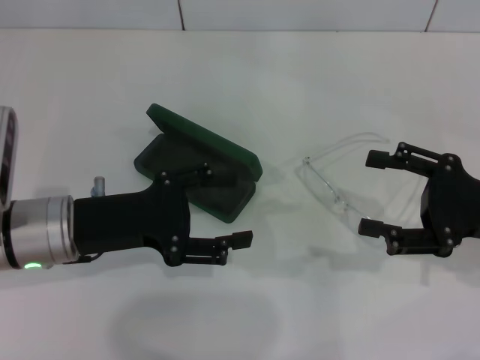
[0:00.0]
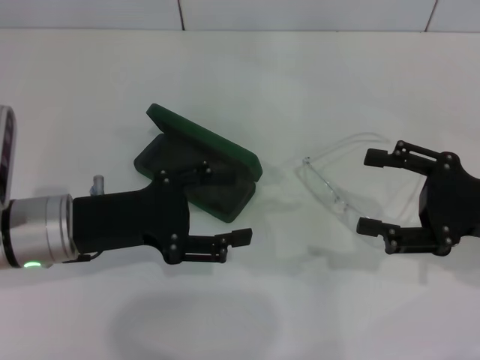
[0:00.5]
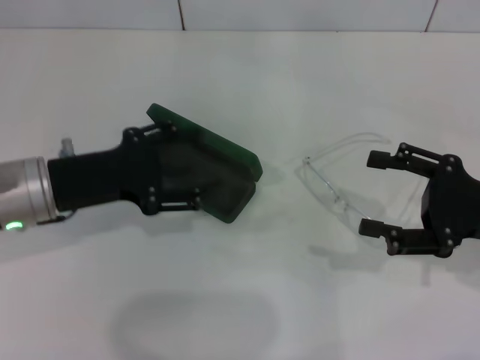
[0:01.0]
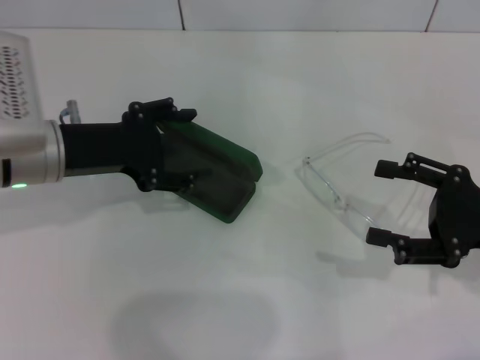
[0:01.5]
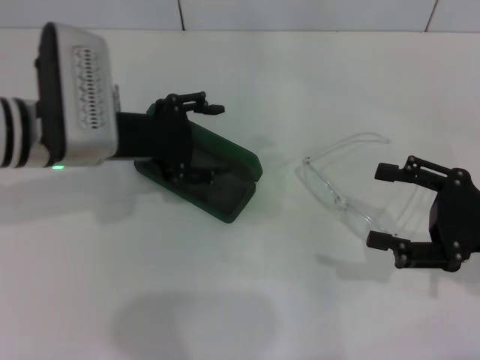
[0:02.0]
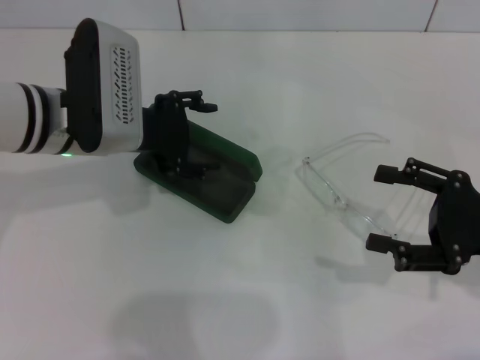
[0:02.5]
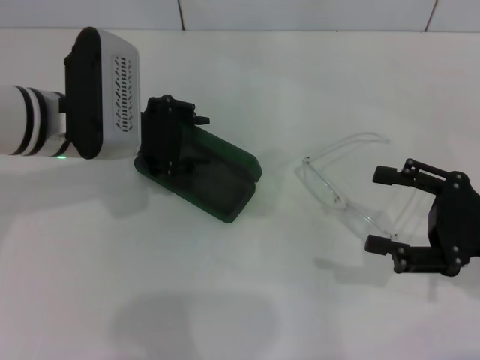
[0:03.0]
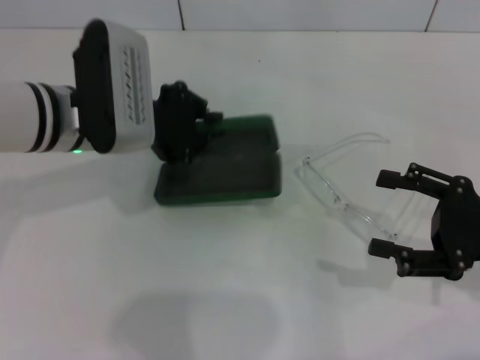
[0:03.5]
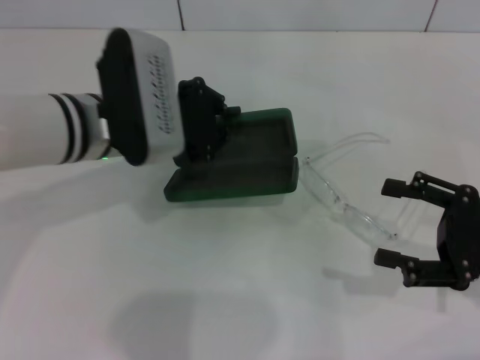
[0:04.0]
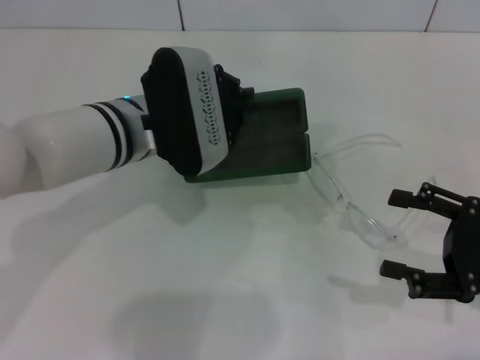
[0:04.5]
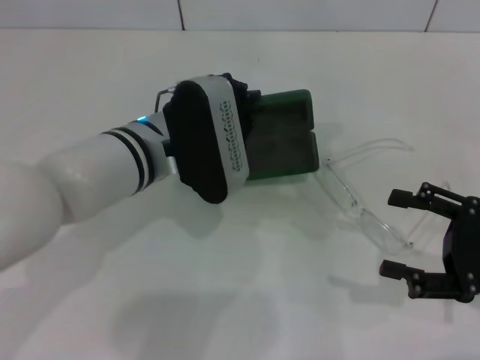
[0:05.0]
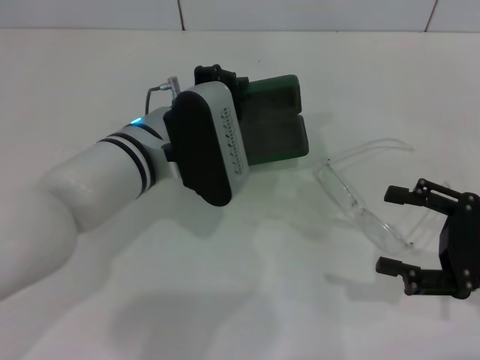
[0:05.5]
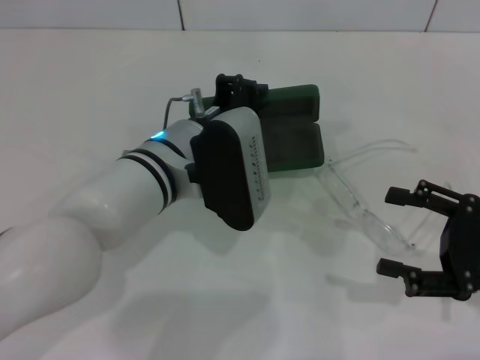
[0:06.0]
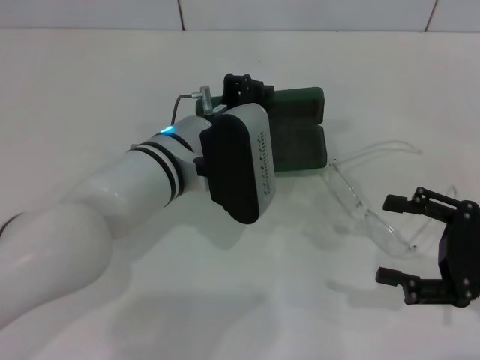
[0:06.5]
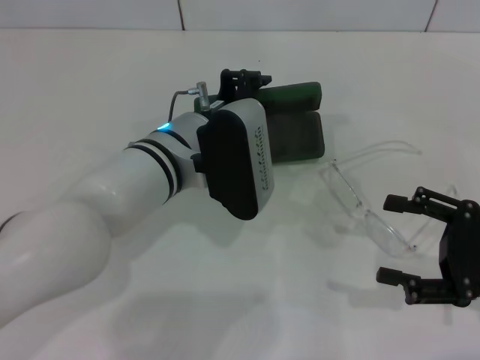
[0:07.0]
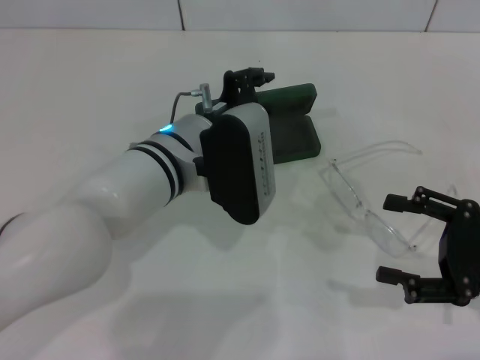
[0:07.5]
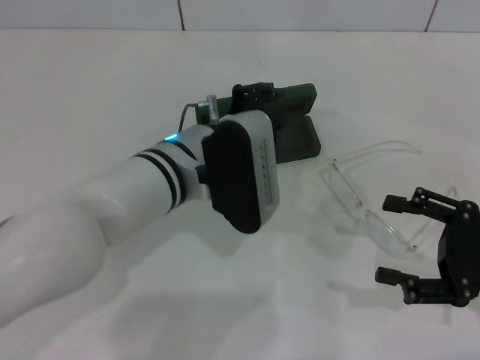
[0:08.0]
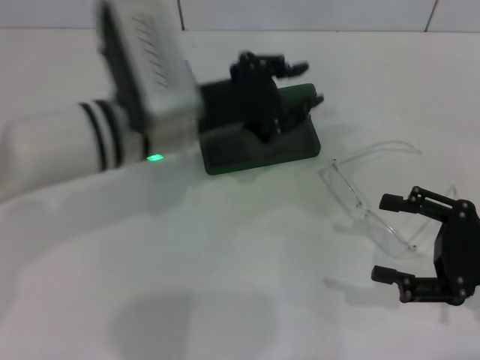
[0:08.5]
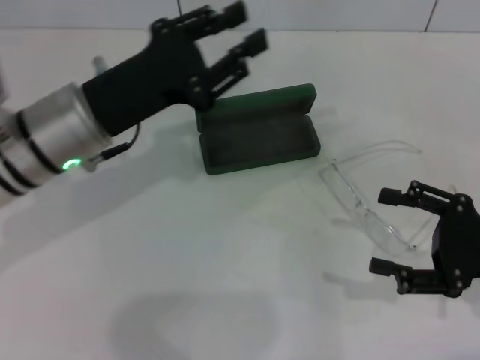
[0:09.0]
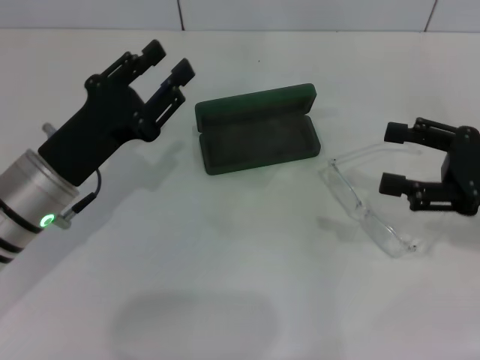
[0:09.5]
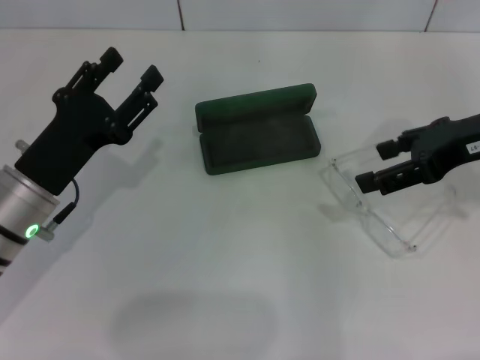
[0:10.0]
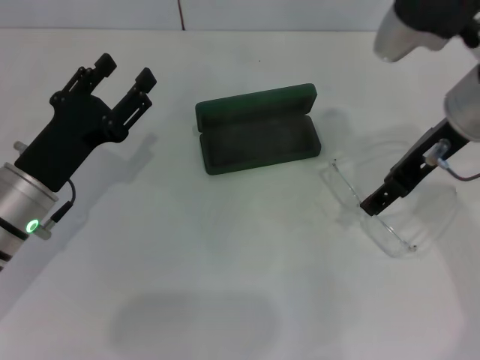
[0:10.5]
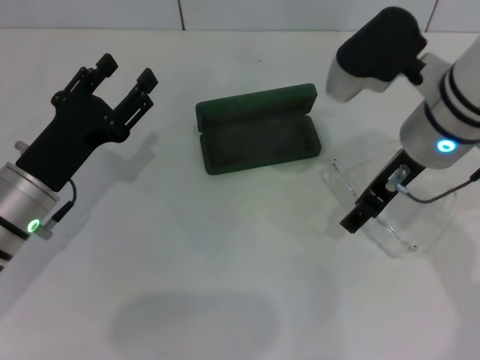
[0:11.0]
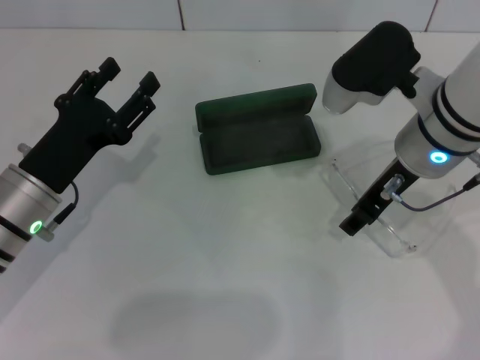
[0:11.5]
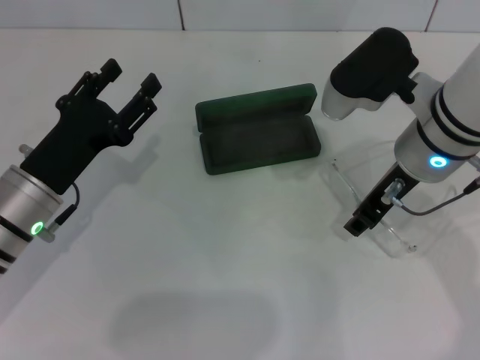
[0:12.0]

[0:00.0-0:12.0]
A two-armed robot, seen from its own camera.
Step, 0.0 to 3.0 s: Grab the glasses case with your left hand.
Step, 3.5 to 7.0 s: Place the glasses case in the center of the table with your left hand.
0.0 to 2.0 s: The left gripper is displaced forward and upward by about 10 cm.
2.0 to 4.0 s: The left gripper closes up.
4.0 to 6.0 s: The left gripper is displaced to the right by roughly 5 cm.
6.0 to 8.0 s: The left gripper opens its fingers.
8.0 to 10.0 s: The right gripper shifts roughly 15 cm upward, forward and to the left, while the left gripper goes approximately 15 cm to the left.
10.0 to 12.0 s: The right gripper is displaced to the left by some 10 cm, and closes.

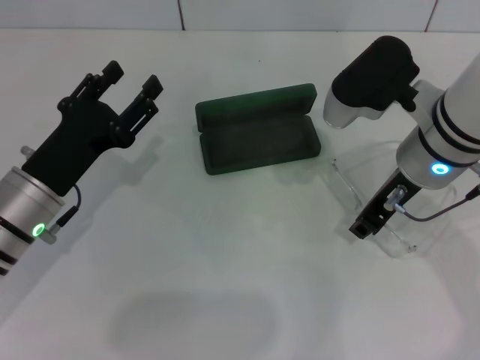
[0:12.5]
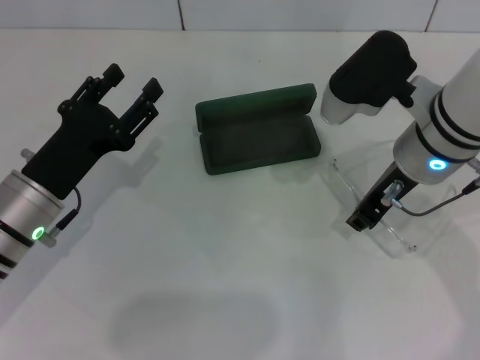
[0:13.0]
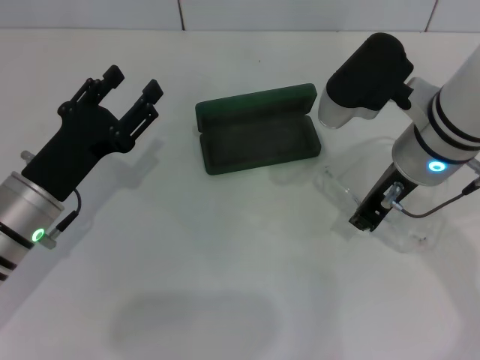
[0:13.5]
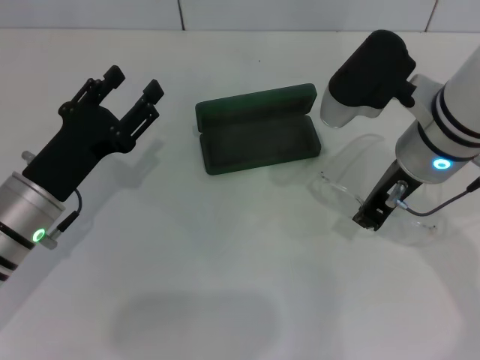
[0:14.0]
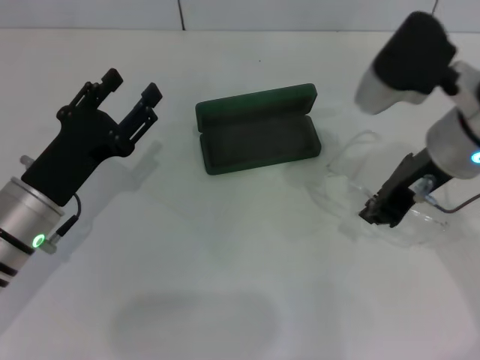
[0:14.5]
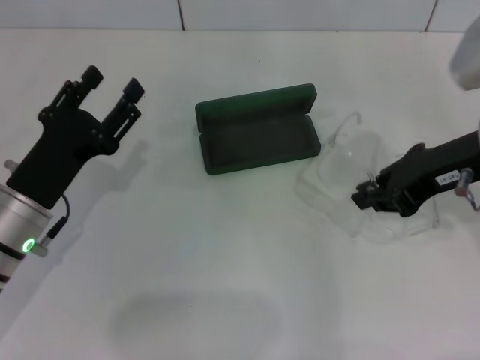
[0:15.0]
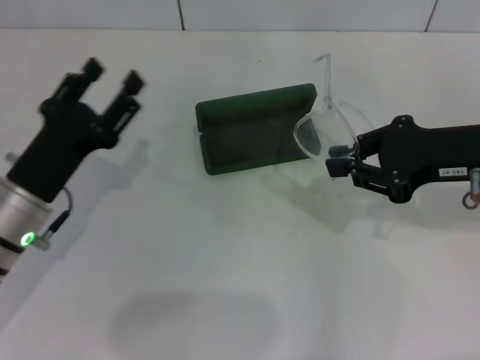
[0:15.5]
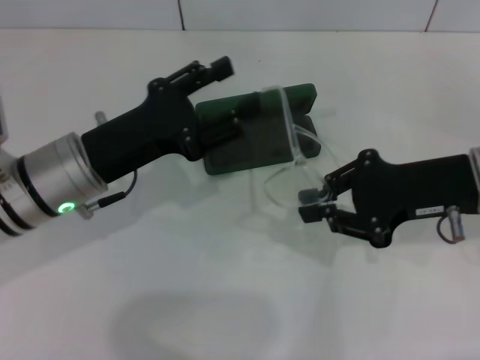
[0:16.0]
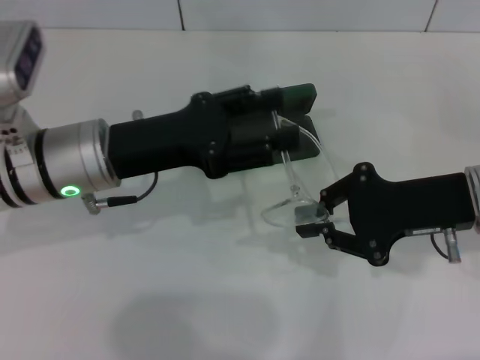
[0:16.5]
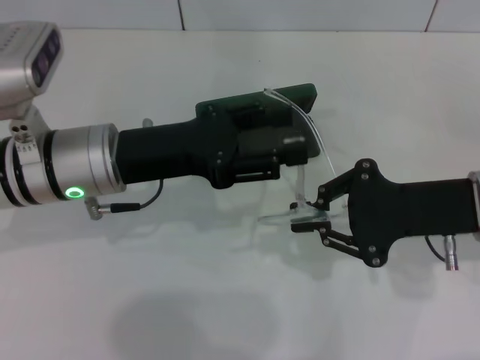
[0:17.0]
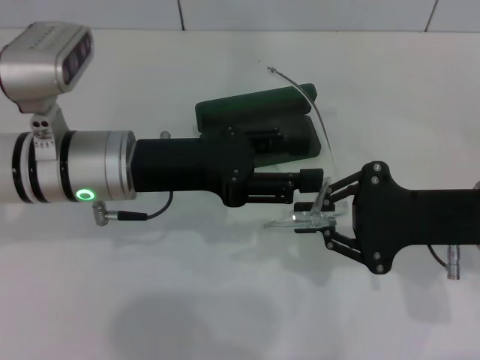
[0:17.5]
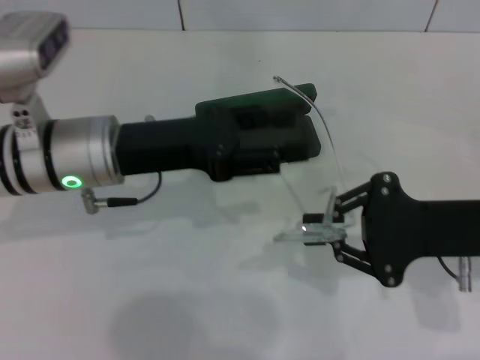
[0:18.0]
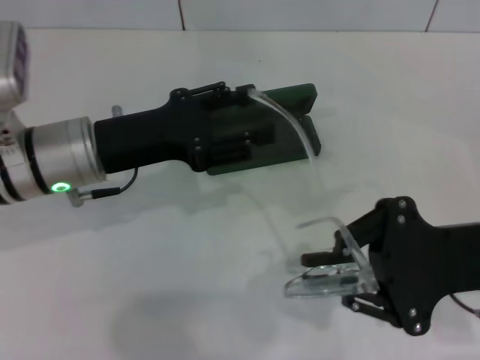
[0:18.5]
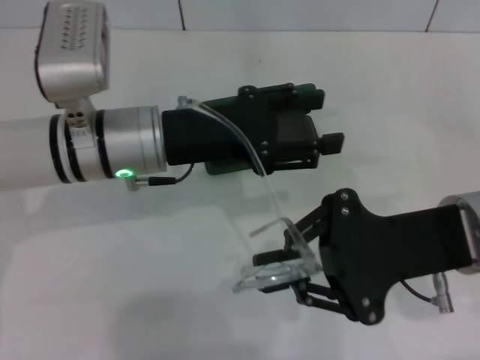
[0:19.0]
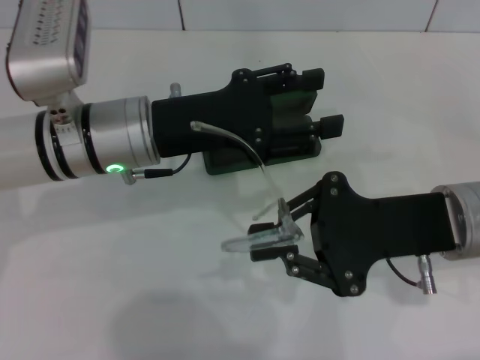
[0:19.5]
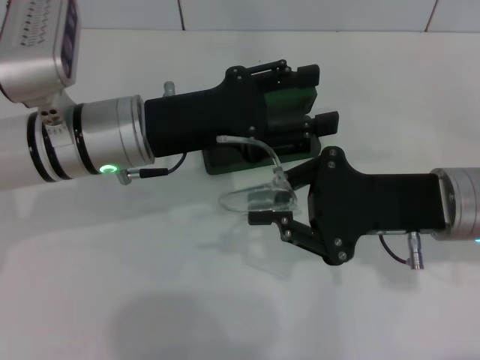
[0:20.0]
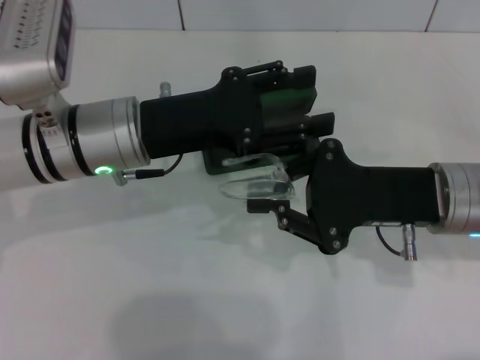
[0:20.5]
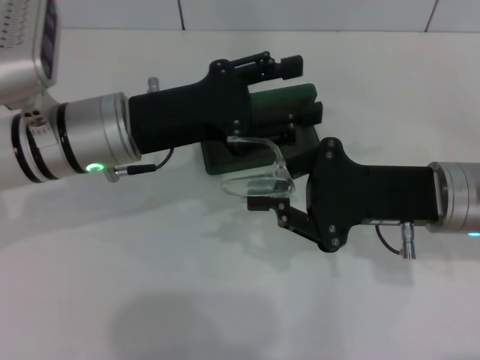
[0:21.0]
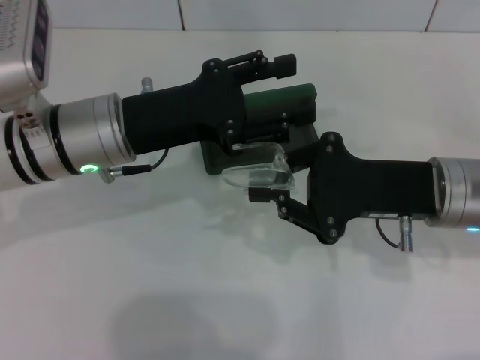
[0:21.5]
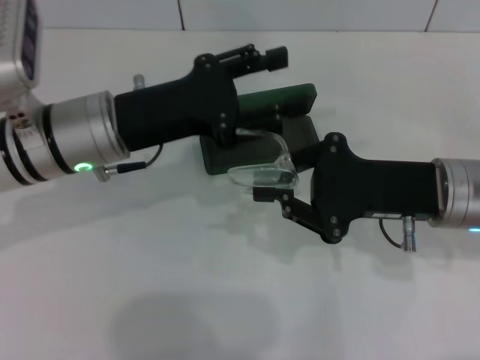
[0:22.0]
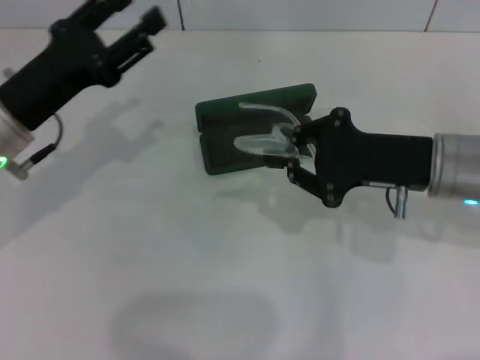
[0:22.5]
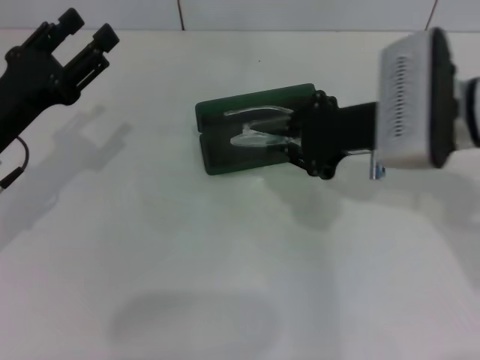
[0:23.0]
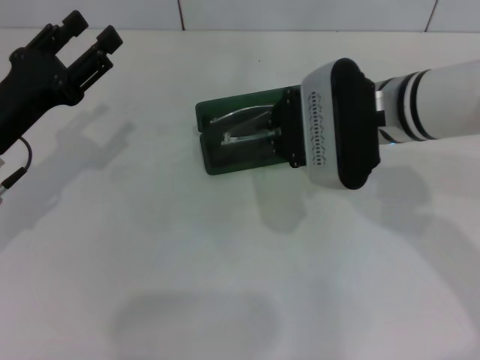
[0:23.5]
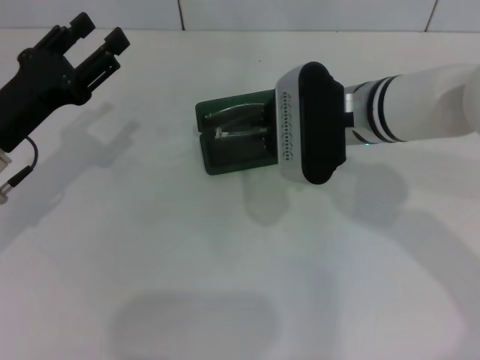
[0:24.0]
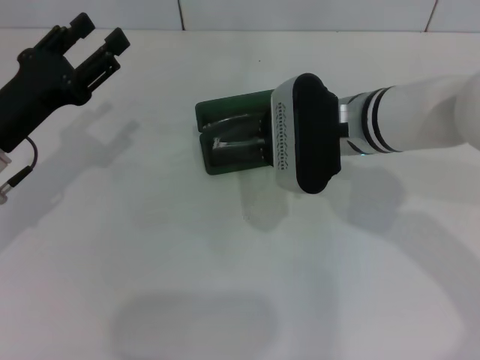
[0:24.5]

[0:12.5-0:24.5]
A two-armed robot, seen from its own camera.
Step, 14.0 to 22.0 s: Fold the frame with your left hand.
12.5 to 14.5 s: The right gripper closes up.
14.5 to 16.5 s: The left gripper is displaced upward and to the right by approximately 10 cm; the right gripper moves to the right and downward, approximately 10 cm.
18.5 to 20.5 s: The right gripper changes place by about 5 cm.
20.5 to 22.5 s: The left gripper shifts about 10 cm to the left.
22.5 to 24.5 s: The right gripper moves to the left and forward, roughly 10 cm.

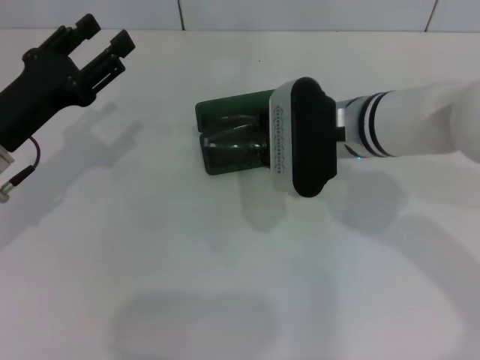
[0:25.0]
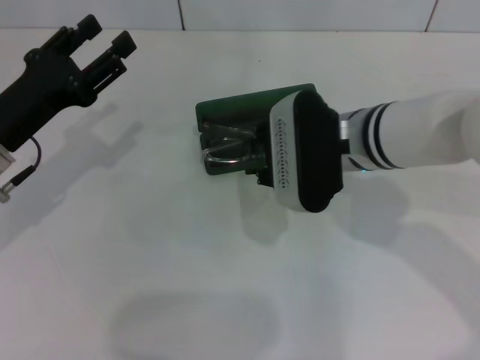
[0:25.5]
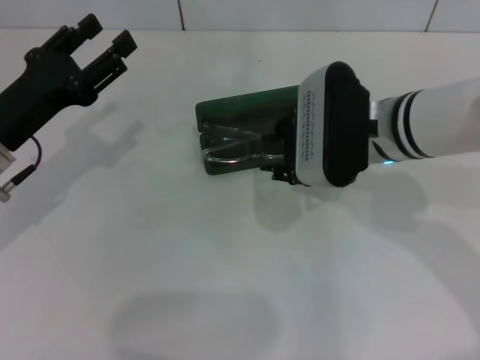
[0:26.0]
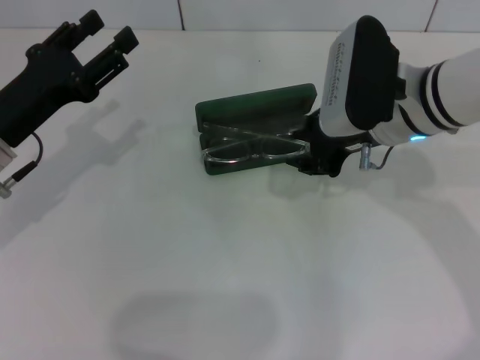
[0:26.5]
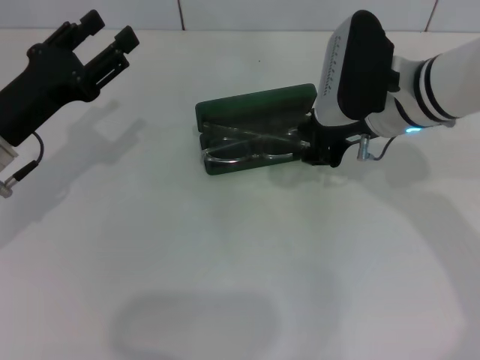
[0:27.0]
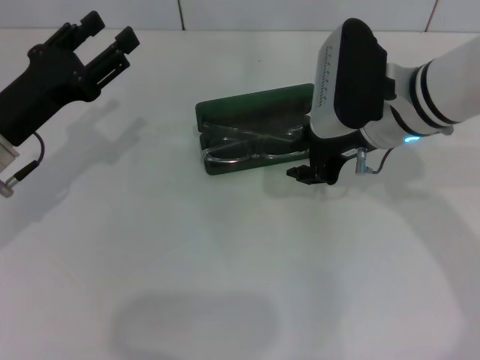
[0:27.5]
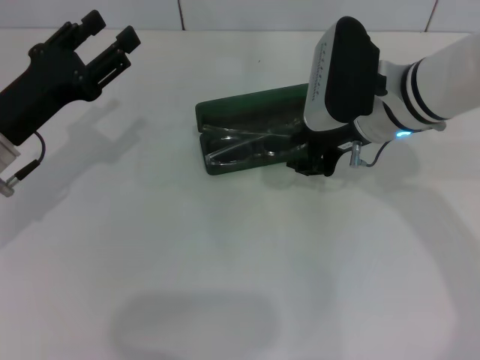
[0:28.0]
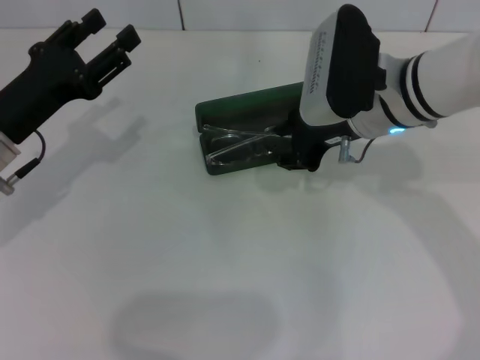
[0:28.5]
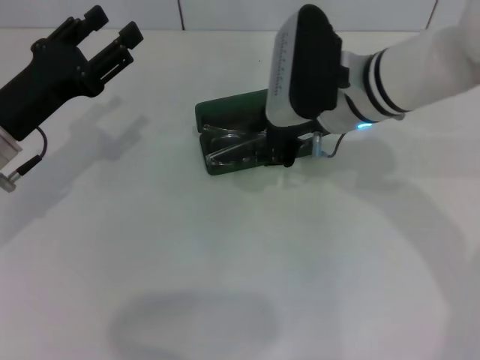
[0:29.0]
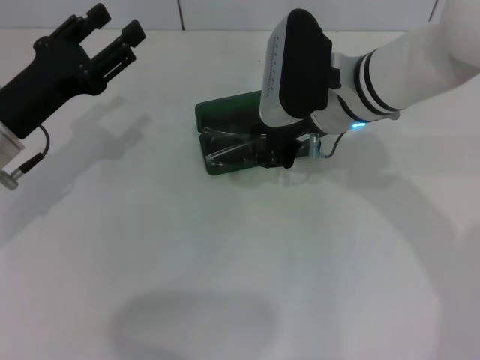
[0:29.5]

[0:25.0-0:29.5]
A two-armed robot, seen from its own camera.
25.0 to 27.0 s: The right gripper shifts by approximately 5 cm.
27.0 to 29.5 s: The right gripper shifts roughly 5 cm to the left.
